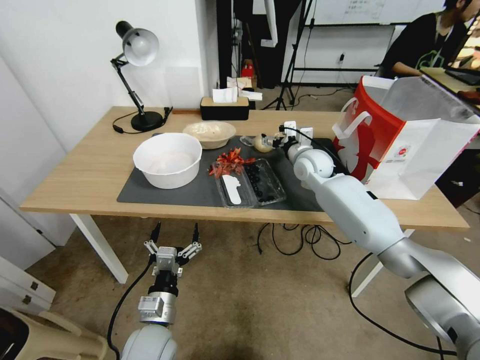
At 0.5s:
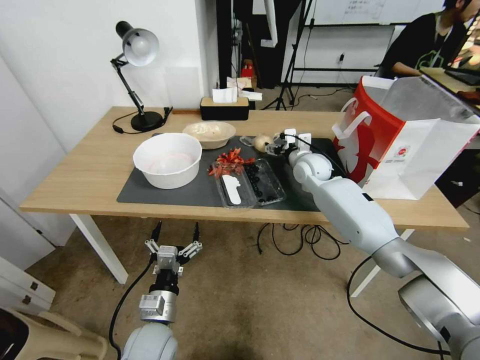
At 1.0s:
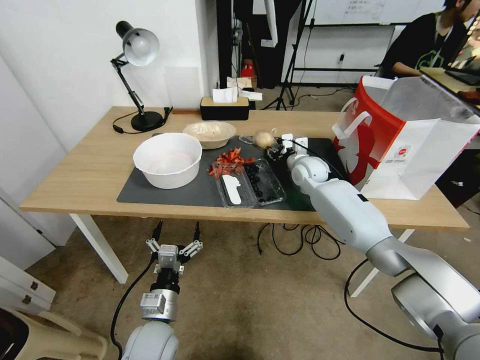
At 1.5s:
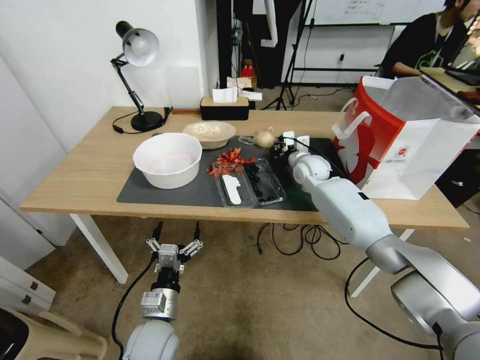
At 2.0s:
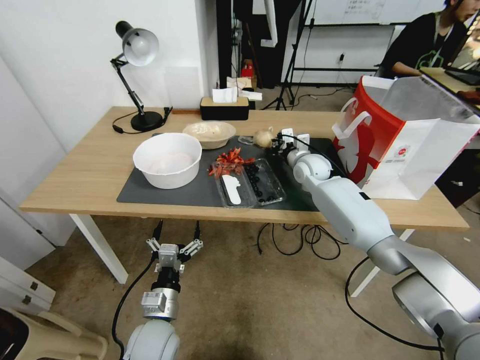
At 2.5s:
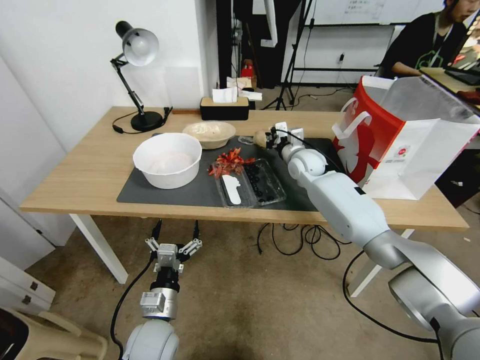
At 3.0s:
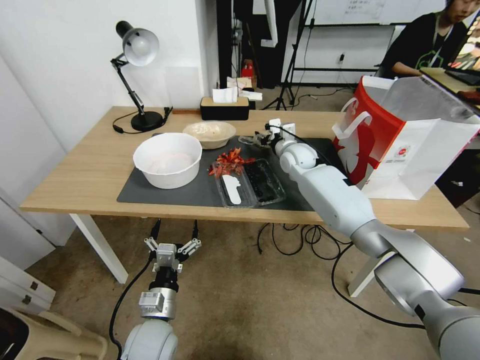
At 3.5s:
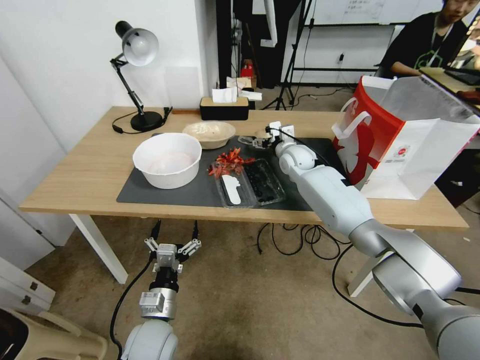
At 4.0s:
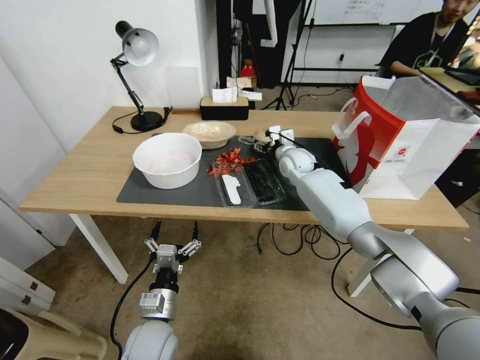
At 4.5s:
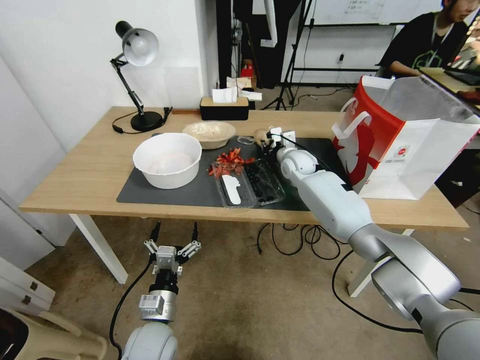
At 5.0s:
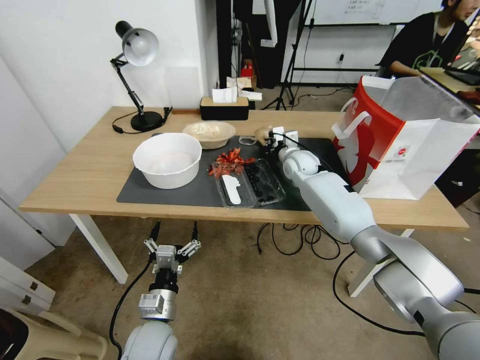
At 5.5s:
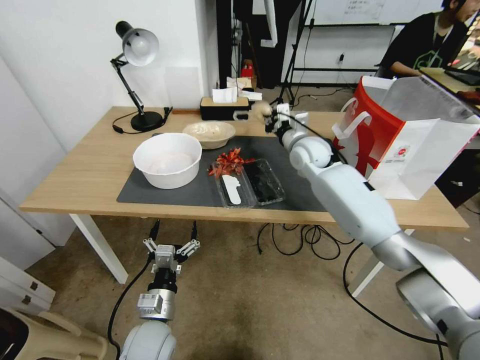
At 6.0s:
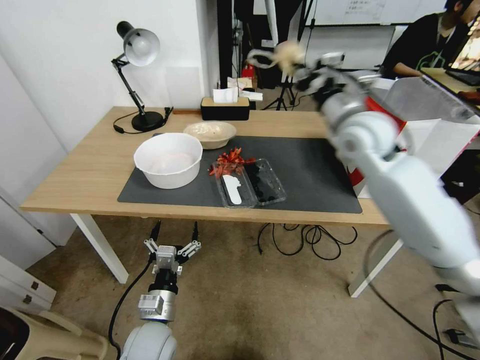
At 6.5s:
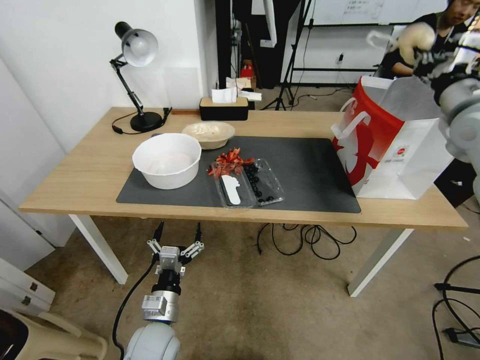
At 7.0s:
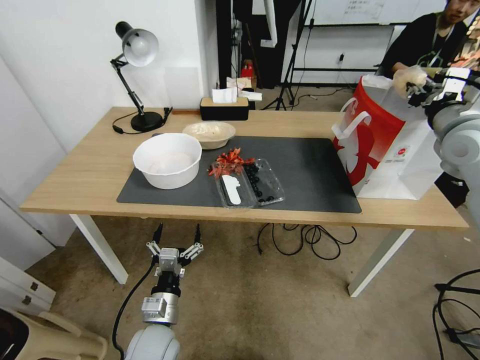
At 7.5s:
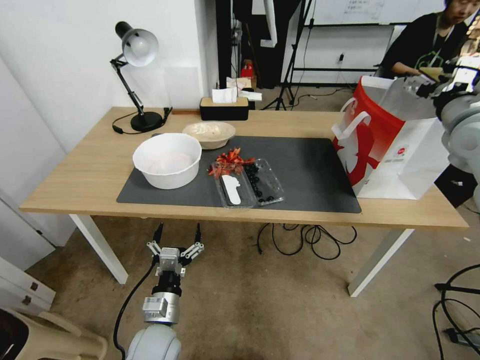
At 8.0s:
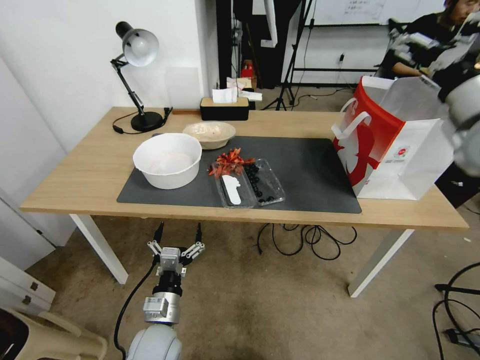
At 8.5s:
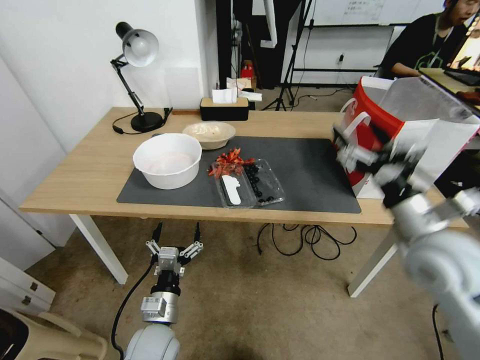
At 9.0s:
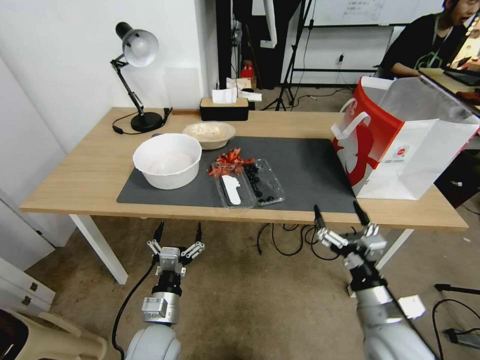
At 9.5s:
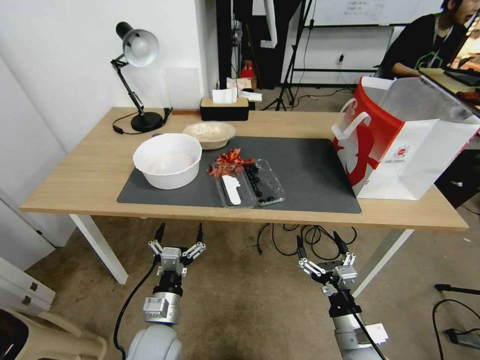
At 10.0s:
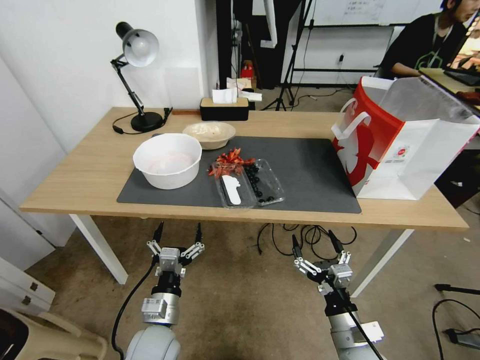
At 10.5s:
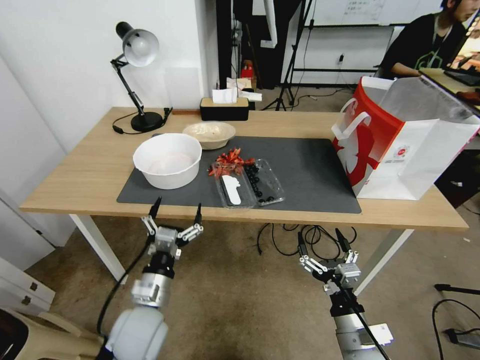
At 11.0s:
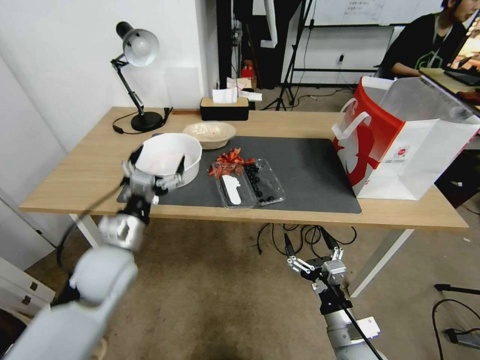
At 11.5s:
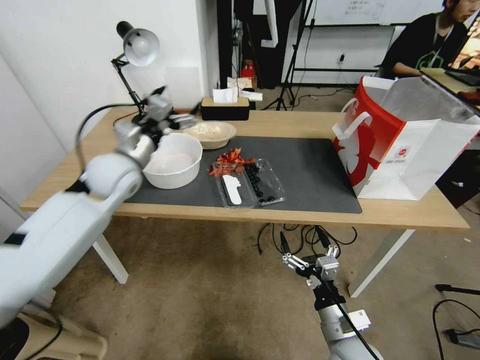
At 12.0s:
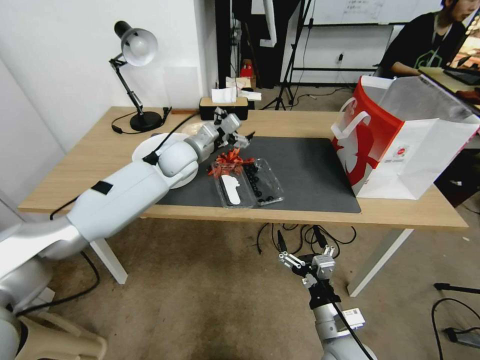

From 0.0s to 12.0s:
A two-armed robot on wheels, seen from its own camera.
From 0.0s to 2.0s: The right gripper closes.
From 2.0s to 4.0s: The right gripper opens up.
From 4.0s to 6.0s: The right gripper heads upward and backward, covering about 25 cm, and closes its fingers.
From 6.0s to 8.0s: The right gripper goes roughly 15 cm to the right and backward, and opens its fingers.
From 8.0s to 10.0s: The right gripper heads downward and backward, covering roughly 40 cm.
From 10.0s to 12.0s: The left gripper goes about 40 cm forward and upward.

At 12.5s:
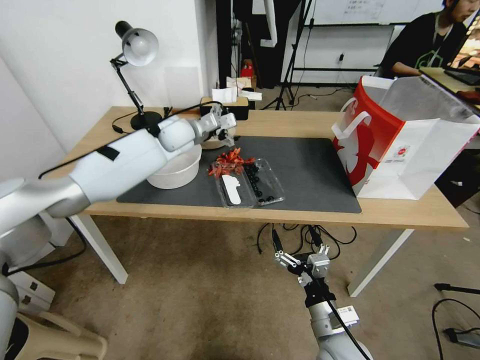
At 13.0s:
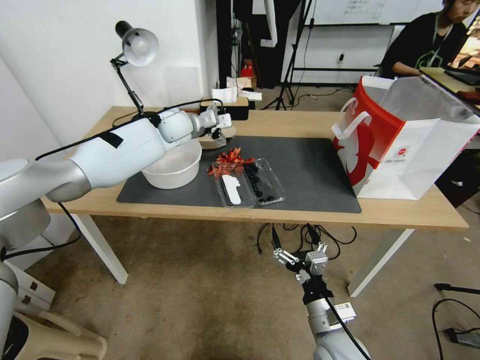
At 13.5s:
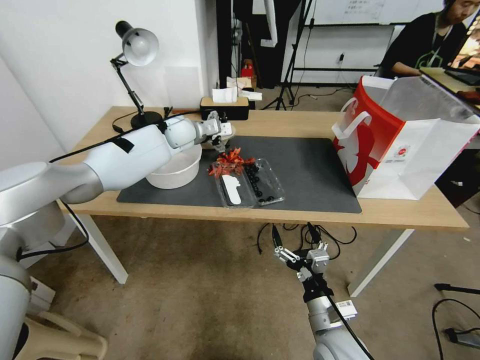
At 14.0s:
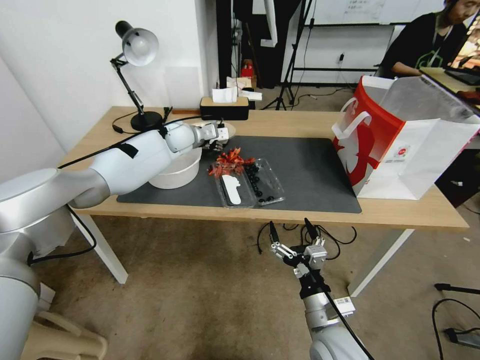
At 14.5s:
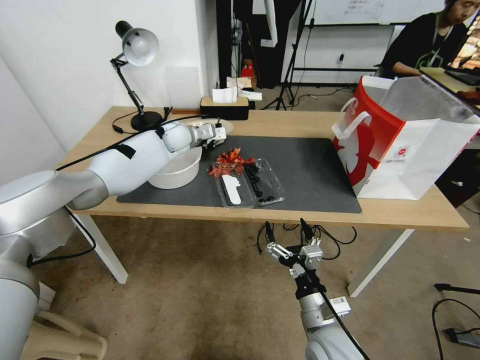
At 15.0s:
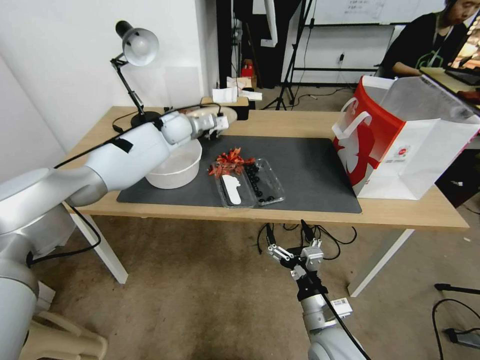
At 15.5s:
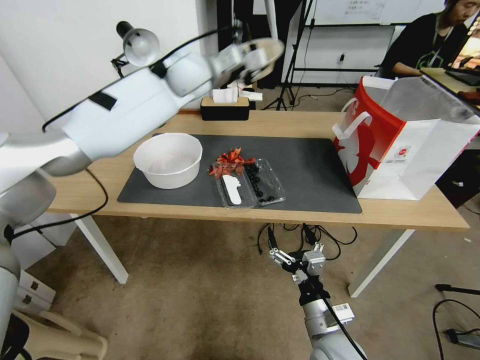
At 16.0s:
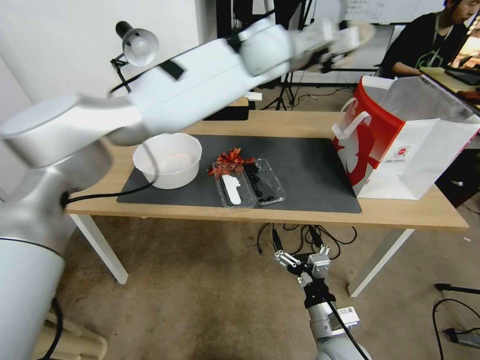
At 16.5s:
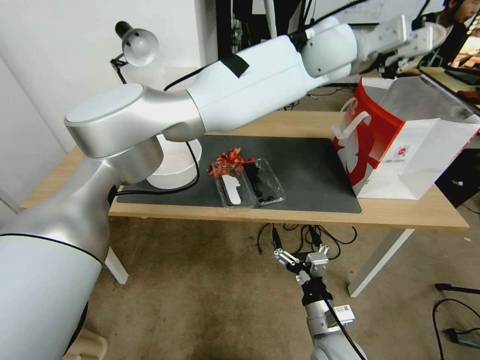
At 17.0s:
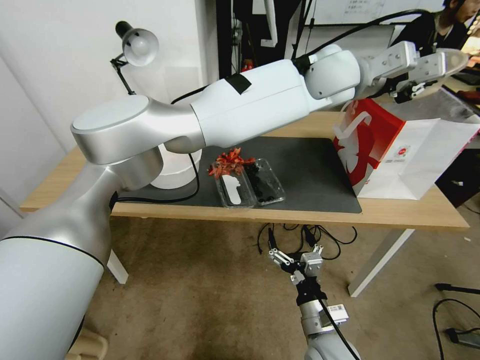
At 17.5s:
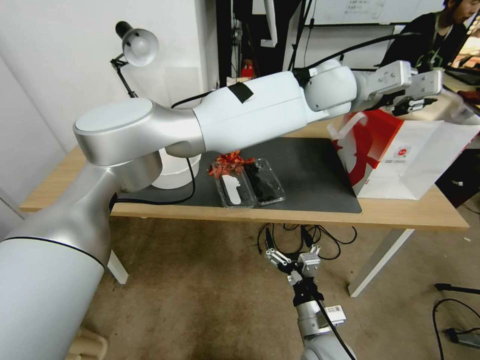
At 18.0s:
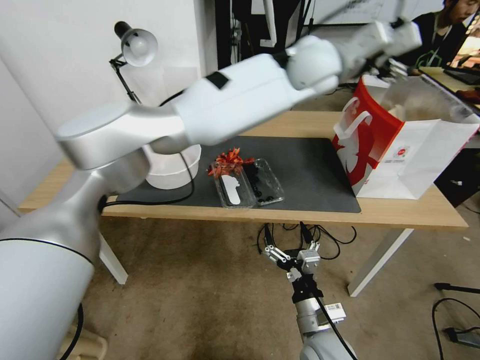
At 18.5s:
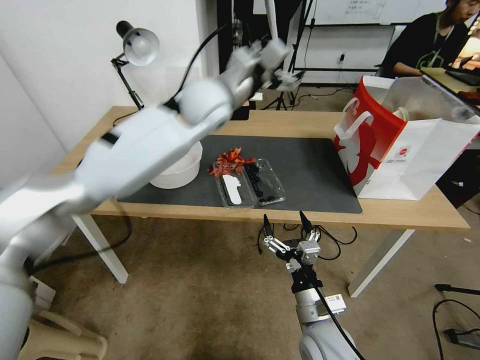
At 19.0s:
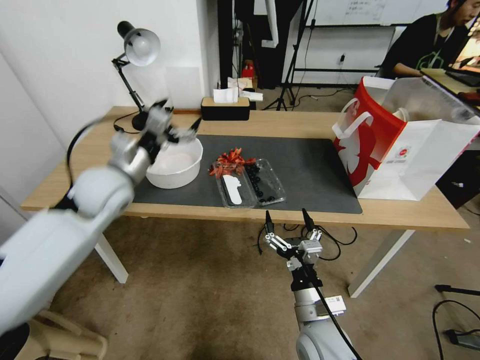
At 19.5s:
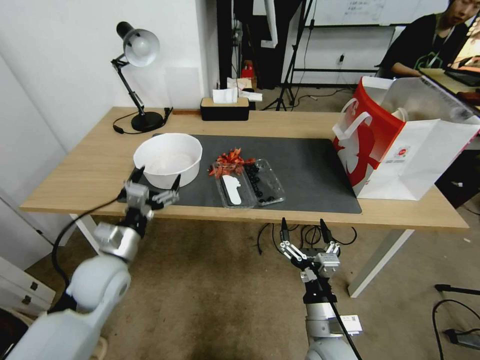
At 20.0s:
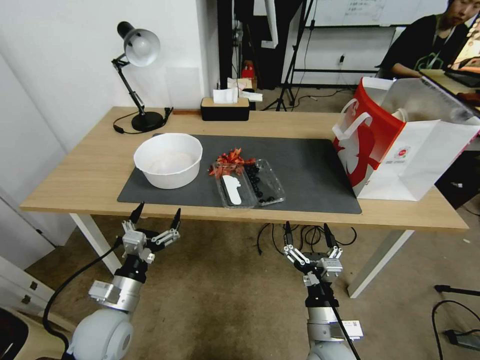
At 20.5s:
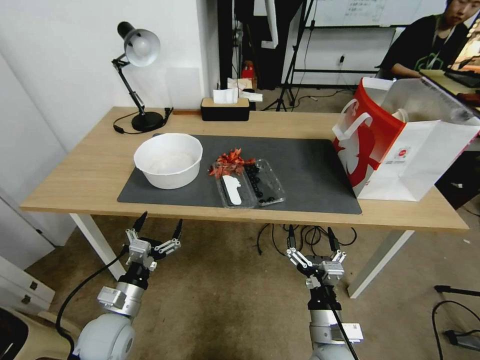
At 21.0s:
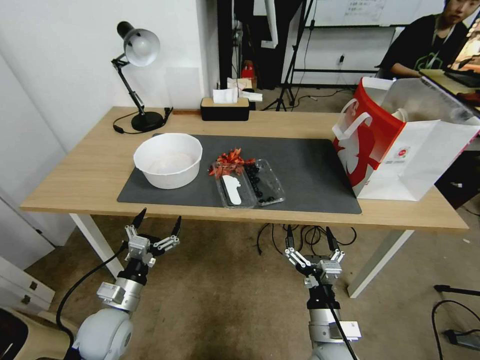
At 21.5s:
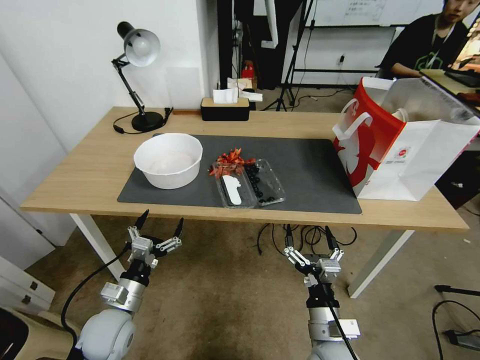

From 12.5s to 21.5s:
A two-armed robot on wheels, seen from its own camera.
From 12.5s to 14.5s: The left gripper changes place by roughly 5 cm, and closes.
From 14.5s to 17.0s: The left gripper shifts roughly 40 cm to the right and upward.
From 17.0s to 19.5s: The left gripper heads to the left, downward and backward, covering approximately 60 cm, and opens up.
From 19.5s to 21.5s: The left gripper goes roughly 15 cm downward and backward.

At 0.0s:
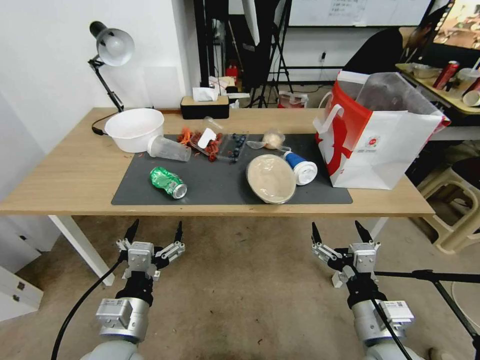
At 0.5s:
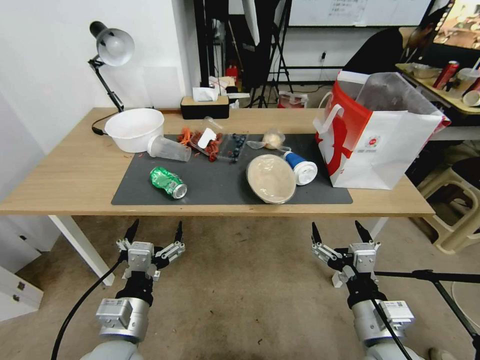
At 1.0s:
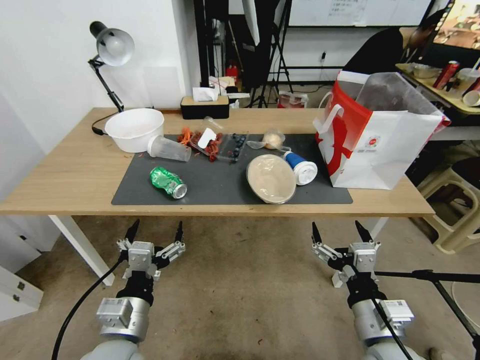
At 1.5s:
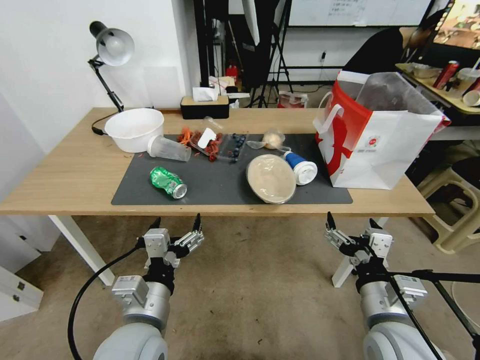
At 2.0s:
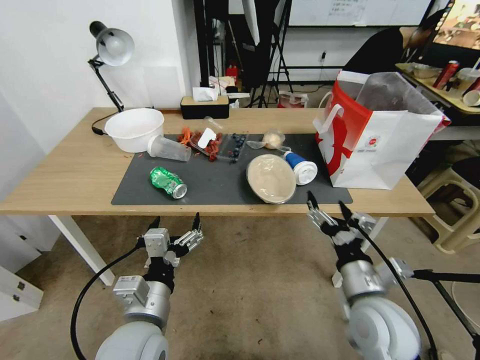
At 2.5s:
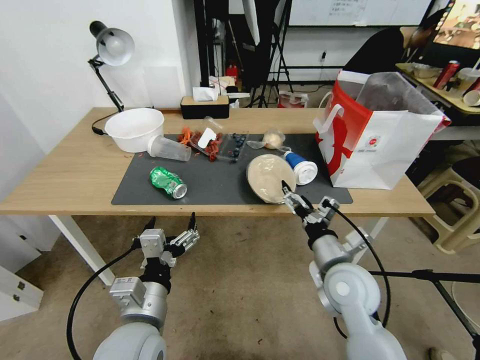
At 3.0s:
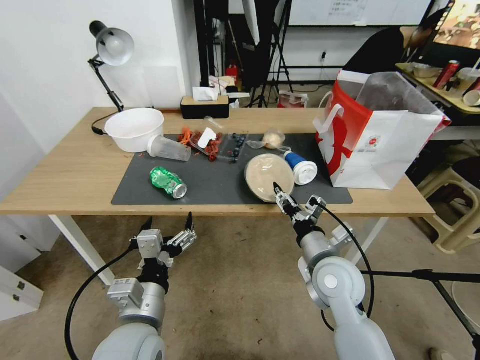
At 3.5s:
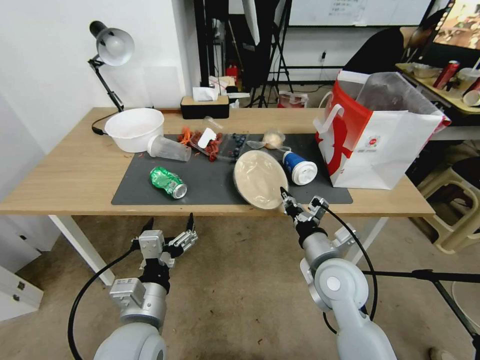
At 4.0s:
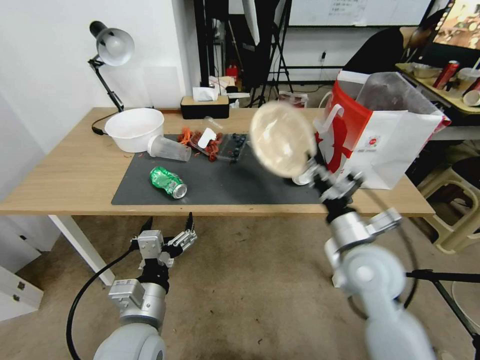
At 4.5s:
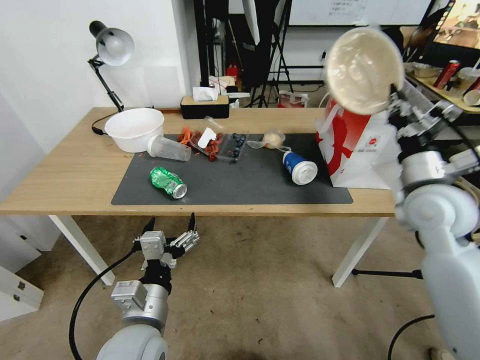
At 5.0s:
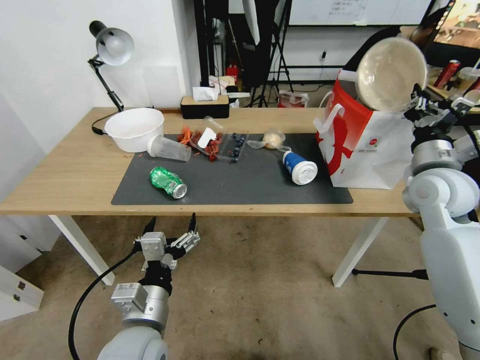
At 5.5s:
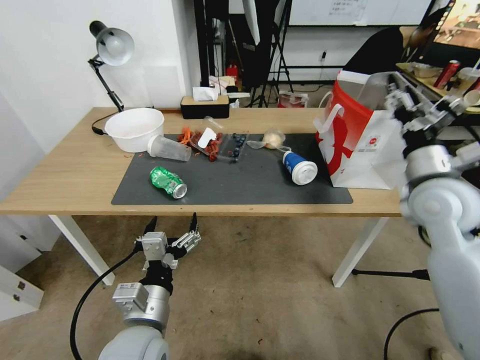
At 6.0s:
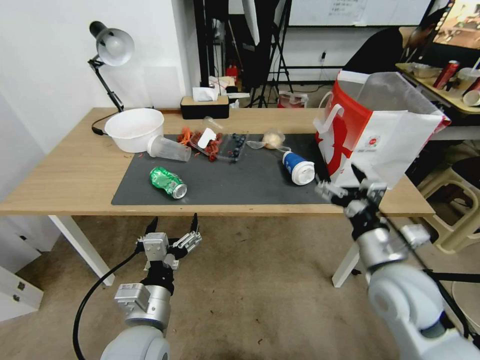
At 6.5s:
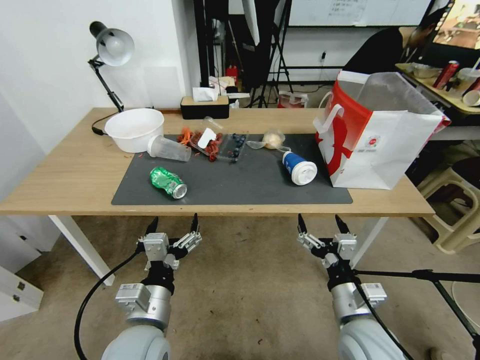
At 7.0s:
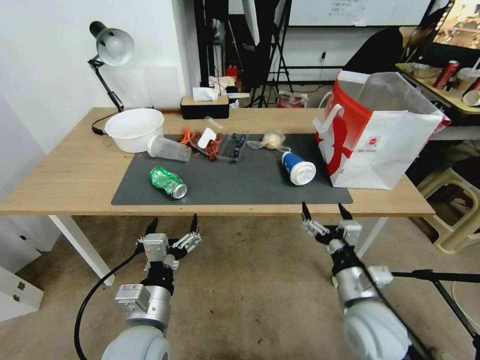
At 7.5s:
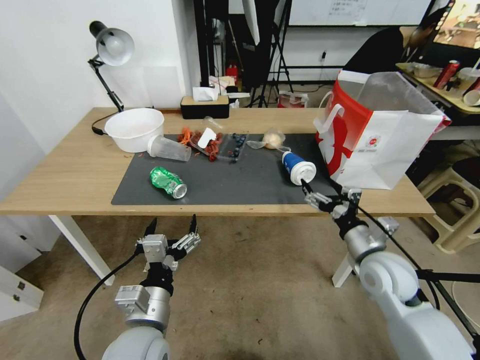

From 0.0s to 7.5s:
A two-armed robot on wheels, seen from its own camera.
From 2.0s to 4.0s: The right gripper moves forward, roughly 10 cm, and closes up.
From 4.0s to 5.5s: The right gripper goes approximately 15 cm to the right, upward and forward, and opens its fingers.
From 5.5s to 7.5s: The right gripper travels downward by some 15 cm, and opens up.
